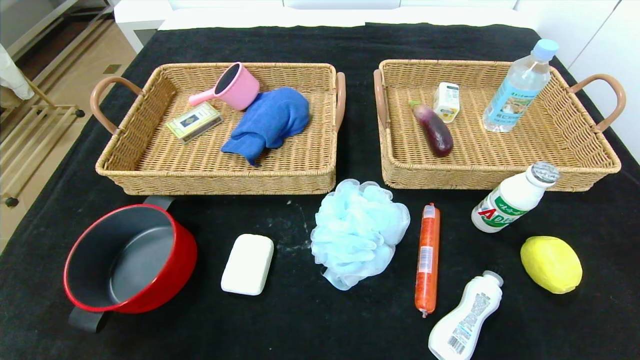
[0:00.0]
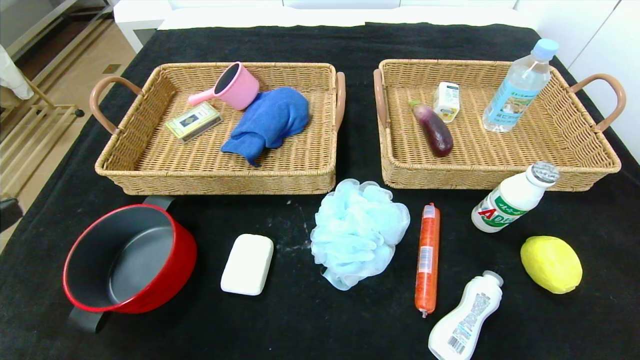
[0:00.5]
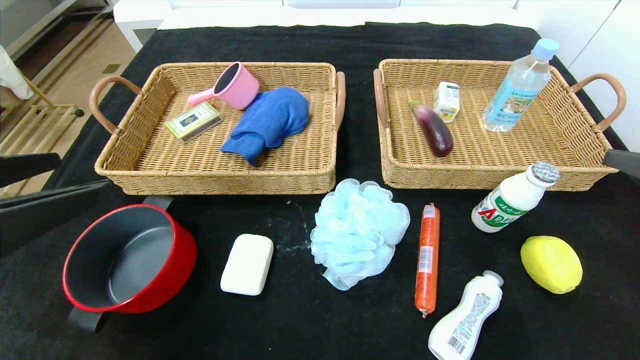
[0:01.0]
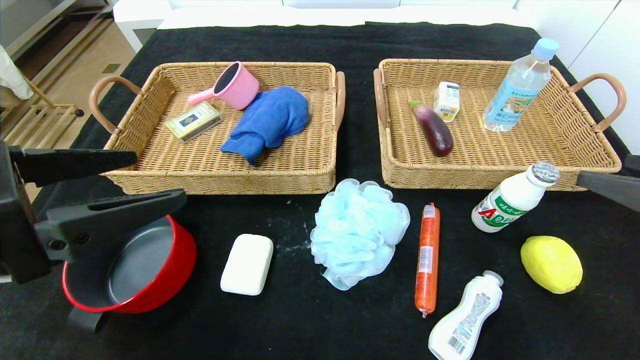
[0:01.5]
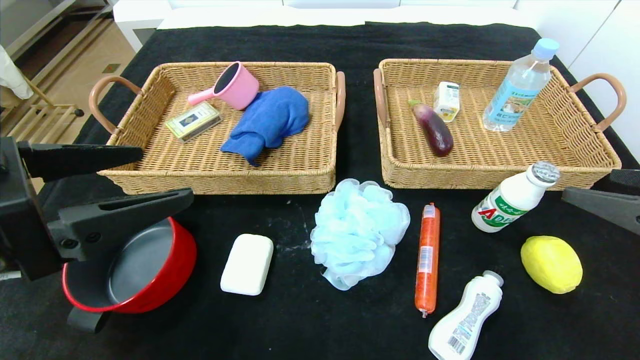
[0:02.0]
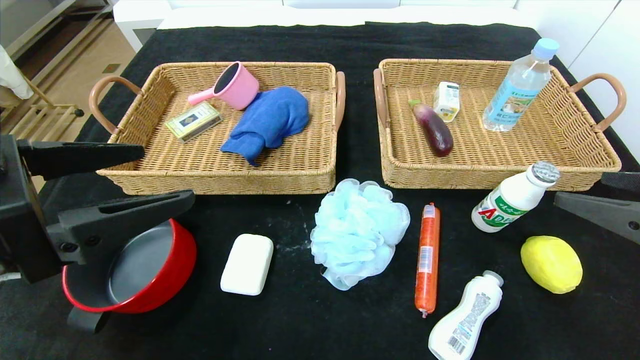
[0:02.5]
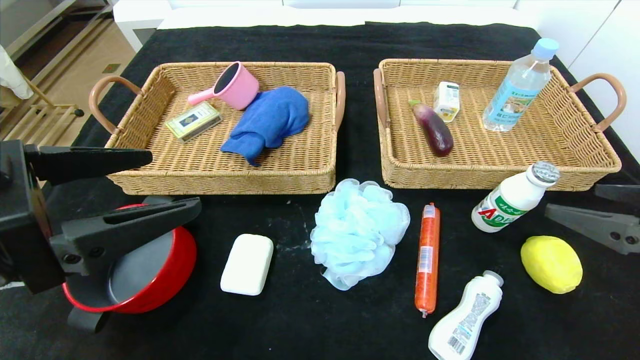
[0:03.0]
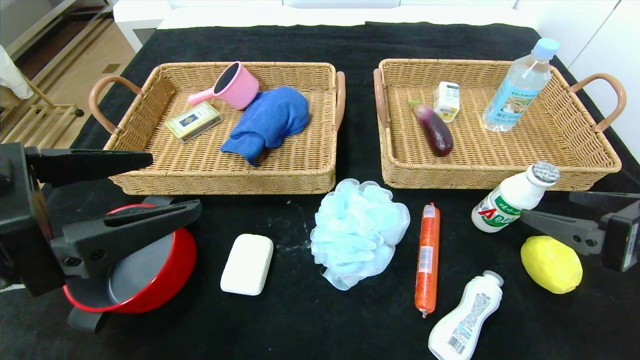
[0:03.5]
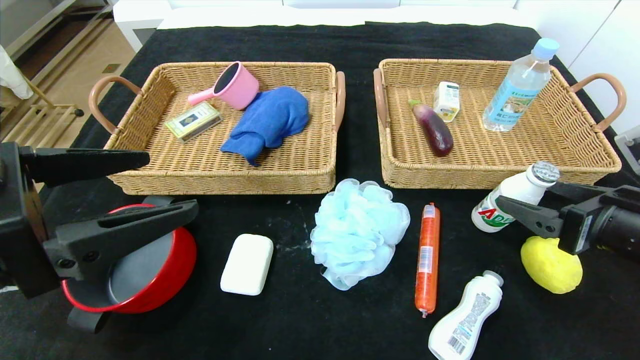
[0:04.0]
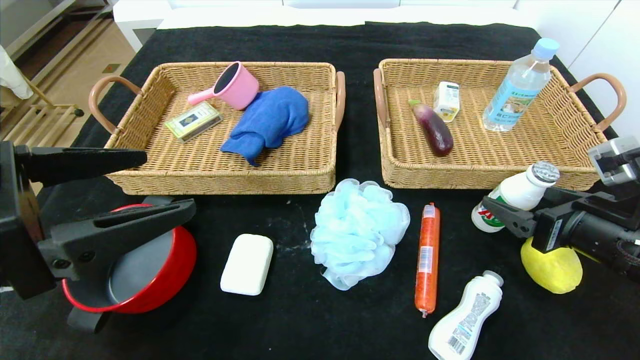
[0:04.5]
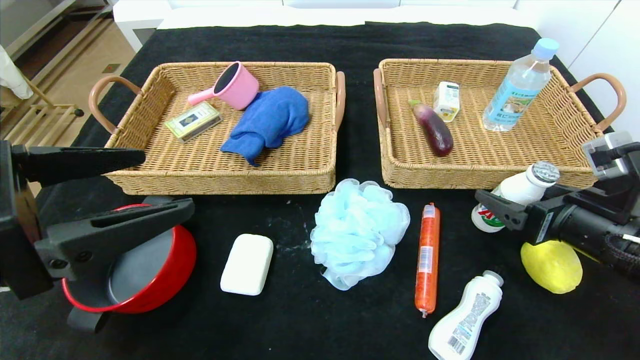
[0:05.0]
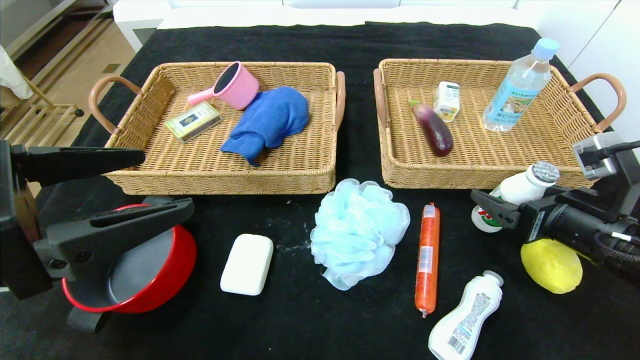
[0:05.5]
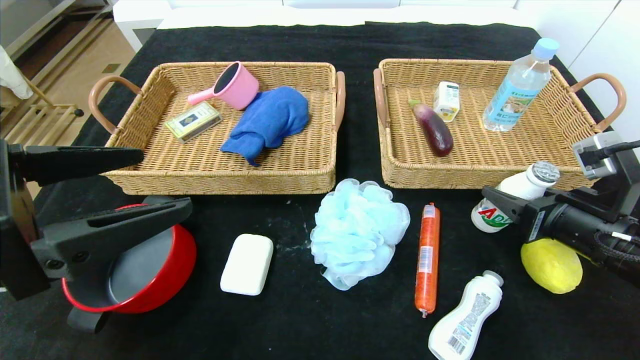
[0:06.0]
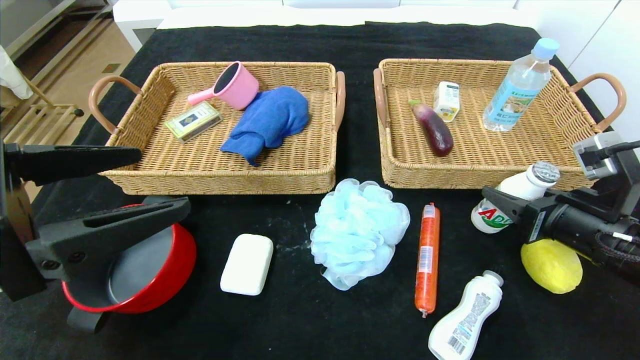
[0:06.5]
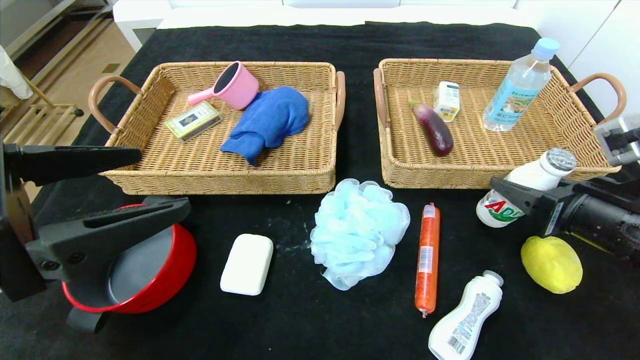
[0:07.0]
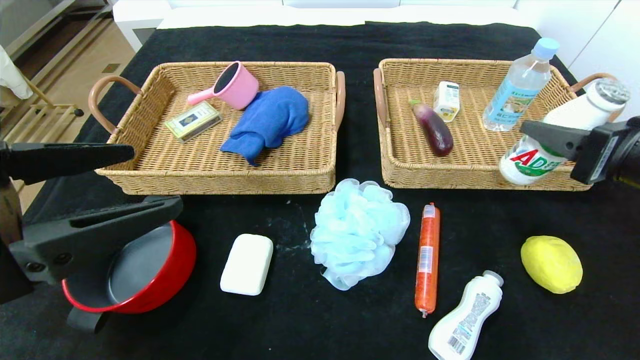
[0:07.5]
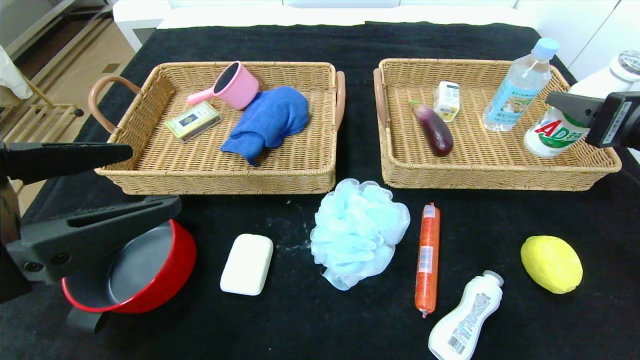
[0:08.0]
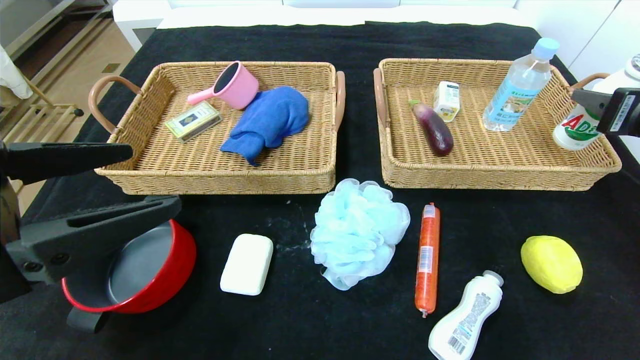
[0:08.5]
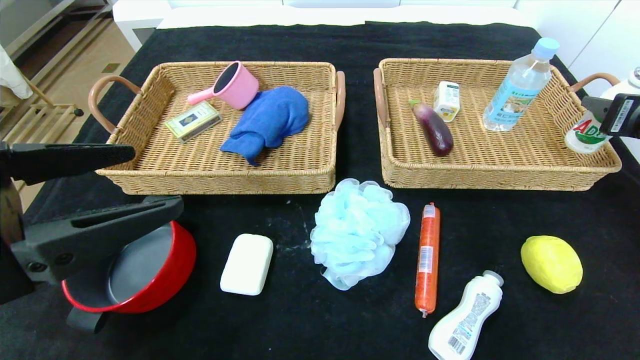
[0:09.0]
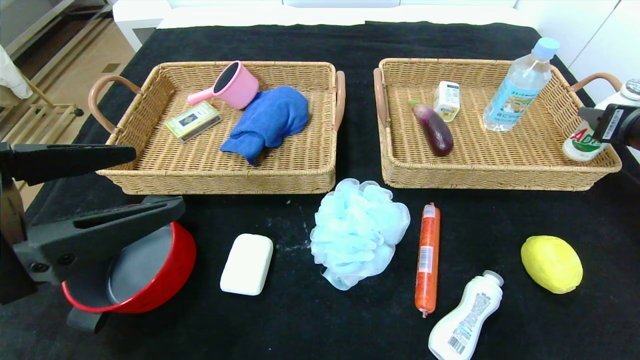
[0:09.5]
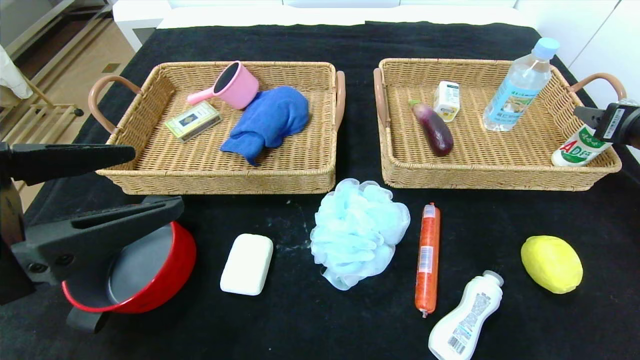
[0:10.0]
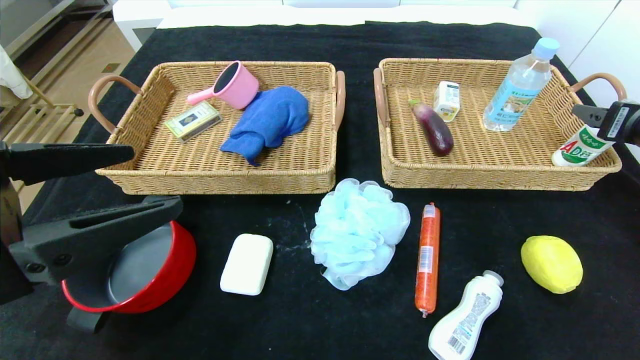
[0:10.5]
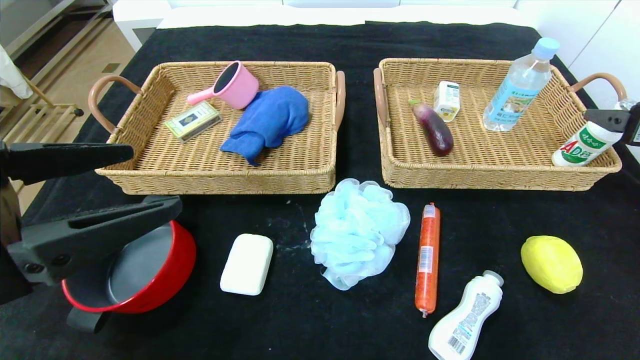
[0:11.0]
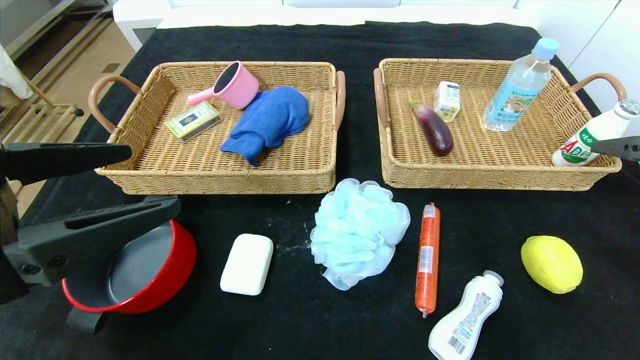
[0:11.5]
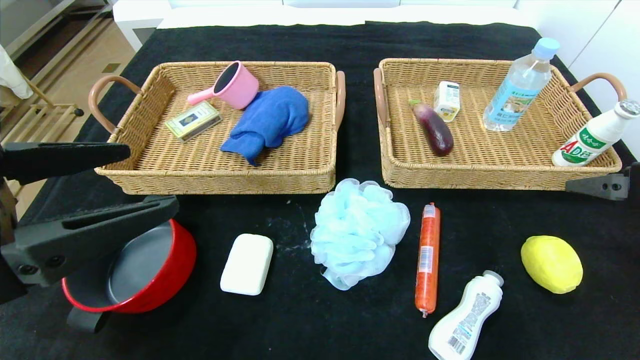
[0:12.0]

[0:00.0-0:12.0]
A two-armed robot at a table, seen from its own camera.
Step, 0:00.0 to 0:10.0: Grasp the yogurt and put it in the right basket.
0:00.0 to 0:02.0: The two grippers go about 15 cm forward.
0:02.0 to 0:04.0: The right gripper goes roughly 10 cm downward and forward.
0:04.0 to 0:06.0: The right gripper closes.
0:06.0 to 0:08.0: The right gripper moves upward, approximately 10 cm.
0:08.0 to 0:10.0: The right gripper goes roughly 10 cm to the right and forward.
0:10.0 to 0:12.0: The right gripper heads backward and to the left, covering some 10 cm.

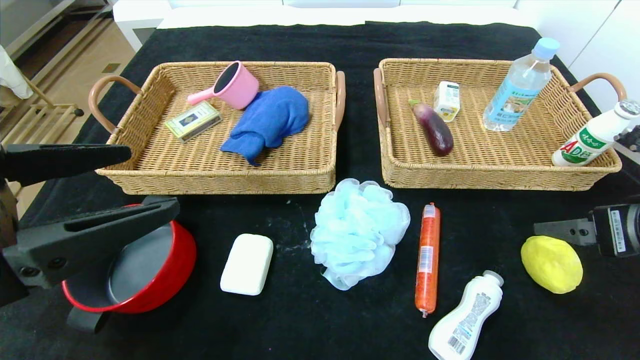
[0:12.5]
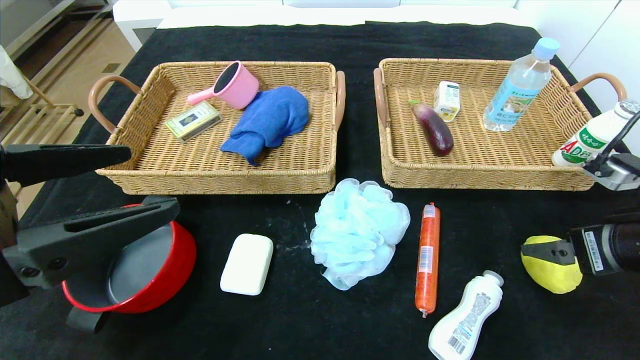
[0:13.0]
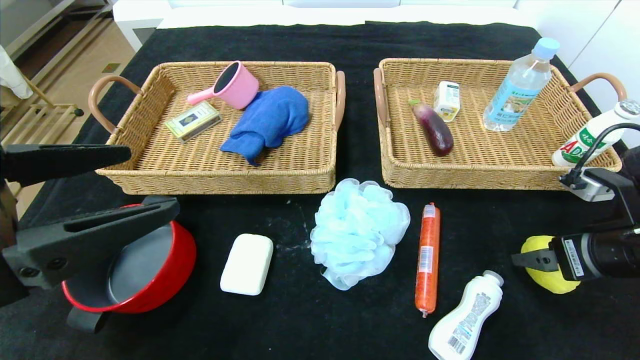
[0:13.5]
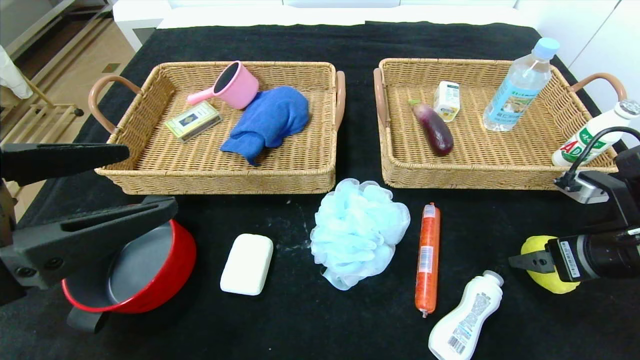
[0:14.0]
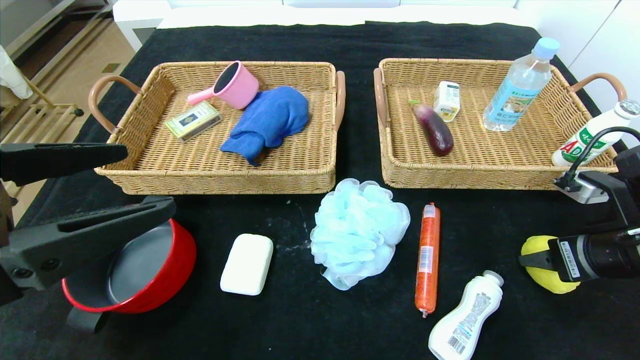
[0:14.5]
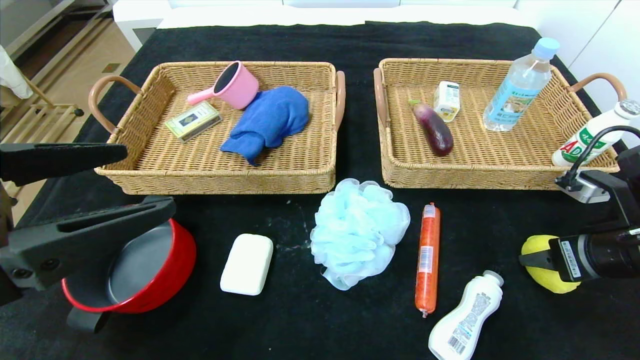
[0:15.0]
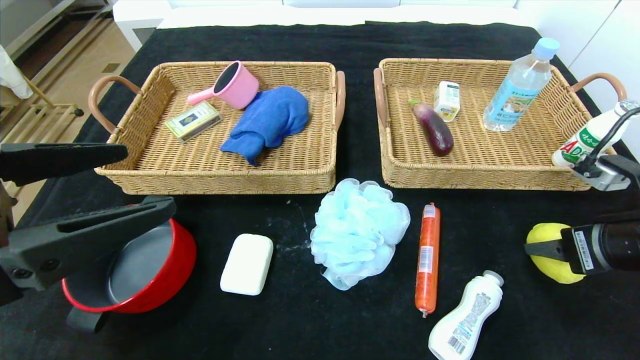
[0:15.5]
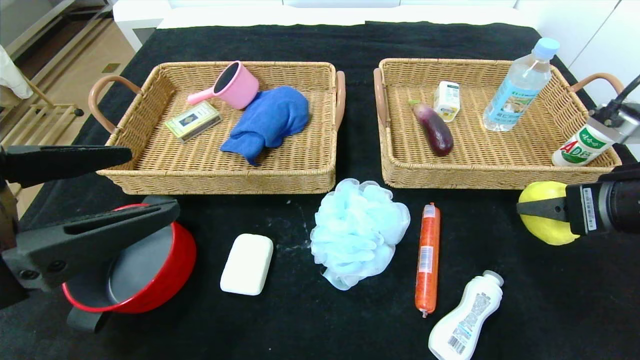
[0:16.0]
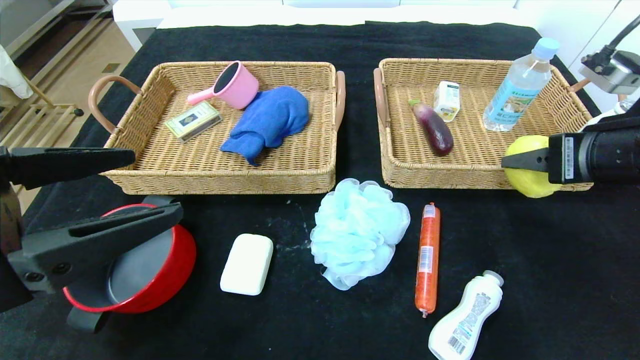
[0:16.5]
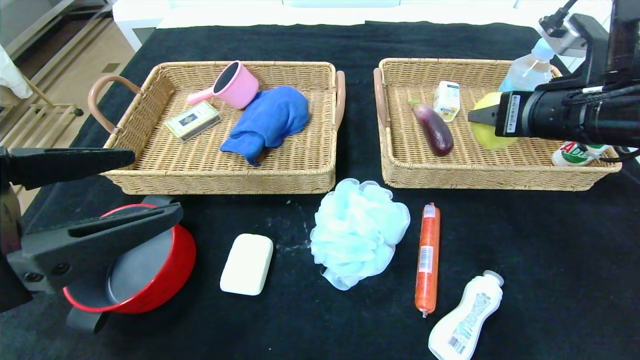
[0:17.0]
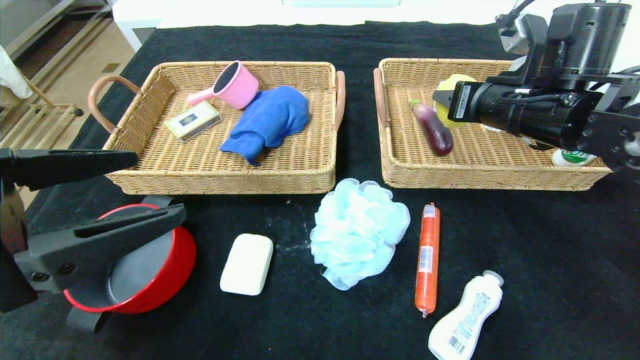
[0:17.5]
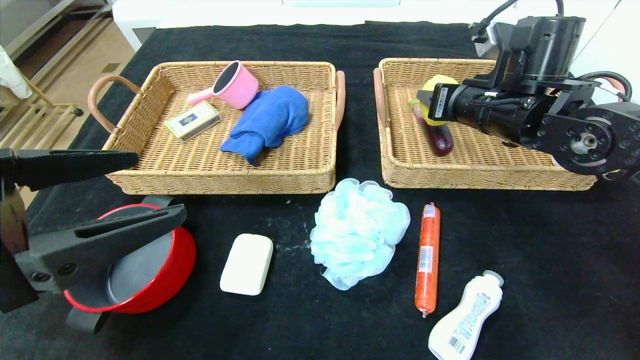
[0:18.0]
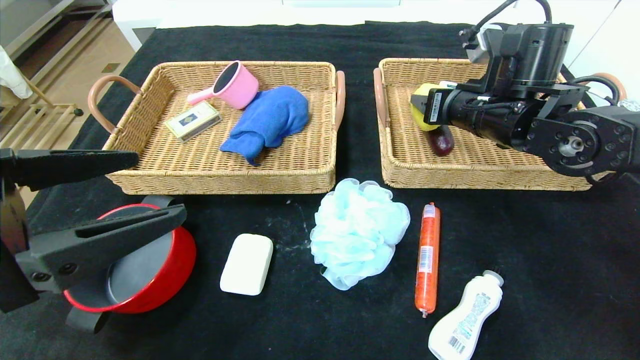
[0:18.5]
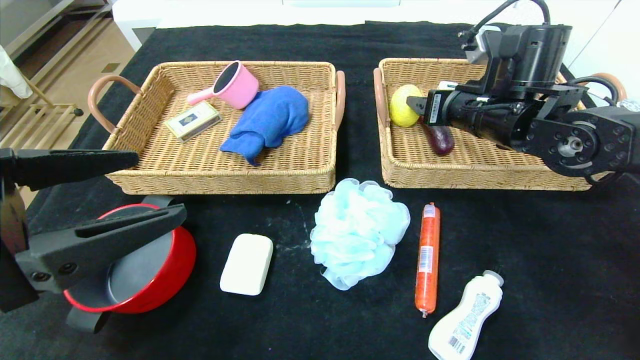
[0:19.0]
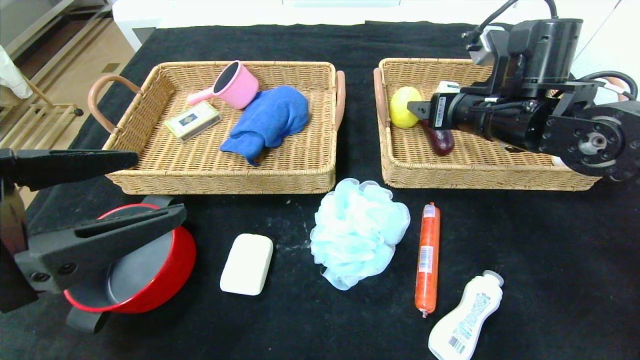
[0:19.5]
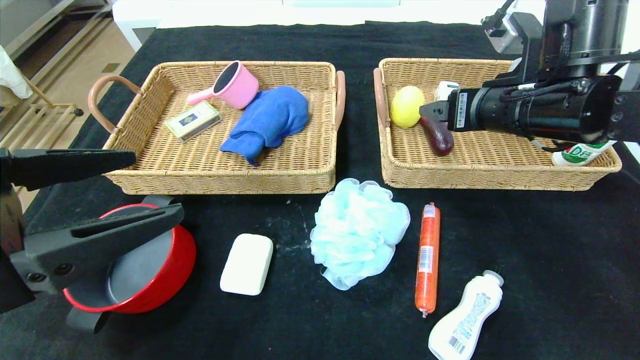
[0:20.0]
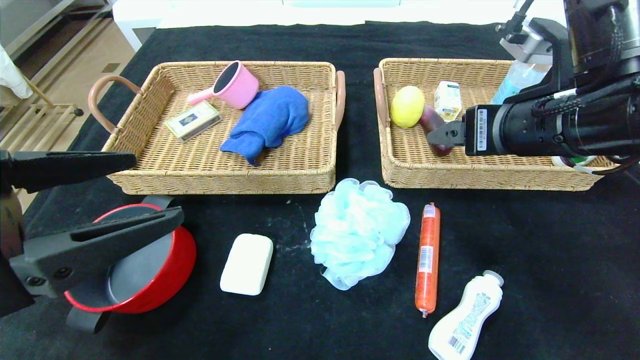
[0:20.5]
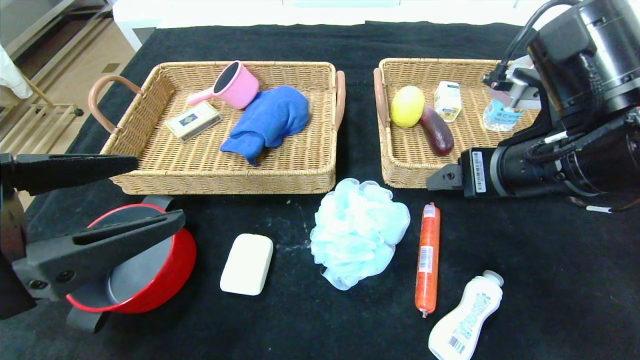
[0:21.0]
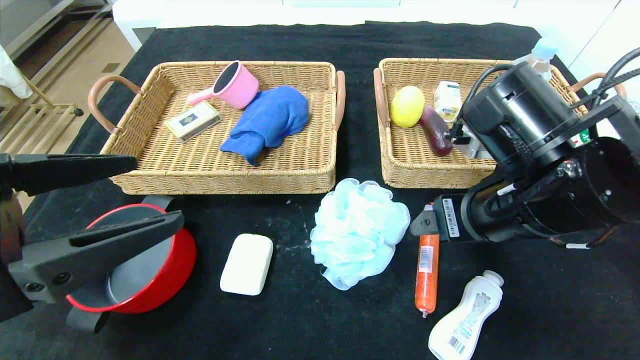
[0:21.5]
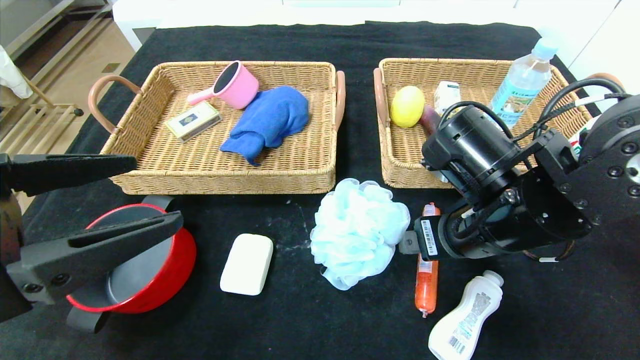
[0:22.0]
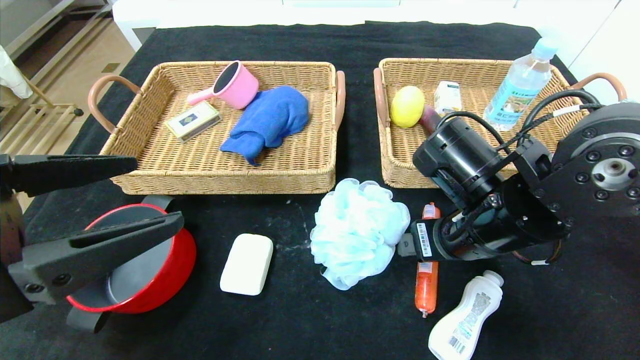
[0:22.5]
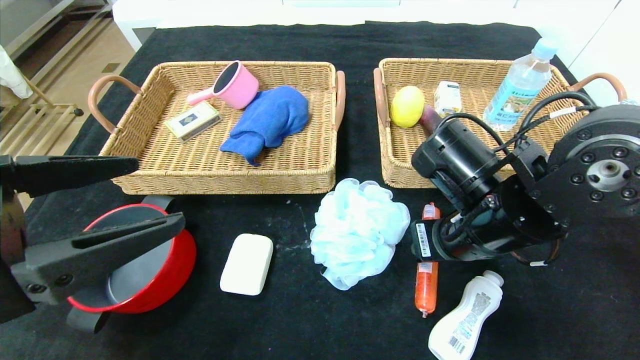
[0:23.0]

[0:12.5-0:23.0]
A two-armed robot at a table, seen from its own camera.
Step, 0:12.5 to 0:18.5: Grasp the lemon and put it in the right basket.
0:12.5 to 0:14.5: The right gripper ends up approximately 5 cm from where it was, and closes its fingers.
0:14.5 to 0:16.5: The right gripper goes roughly 10 cm upward.
0:16.5 to 0:19.0: The right gripper is displaced forward and to the left by approximately 15 cm, and opens up.
0:19.0 to 0:21.0: The right gripper travels backward by approximately 15 cm.
0:21.0 to 0:23.0: The right gripper is displaced downward by roughly 5 cm, and closes.
